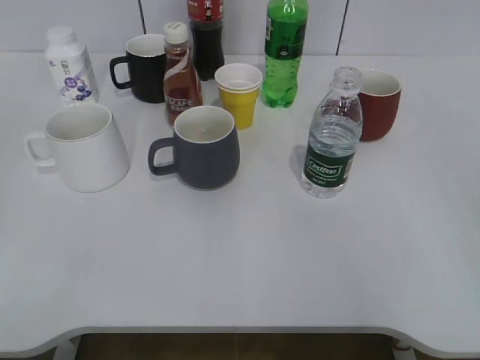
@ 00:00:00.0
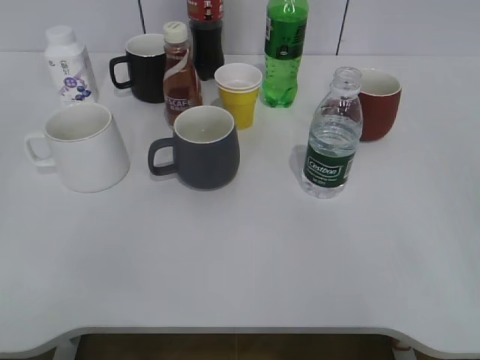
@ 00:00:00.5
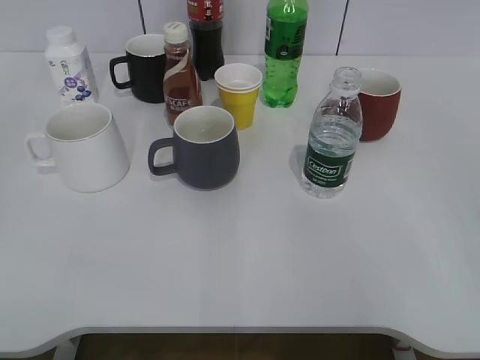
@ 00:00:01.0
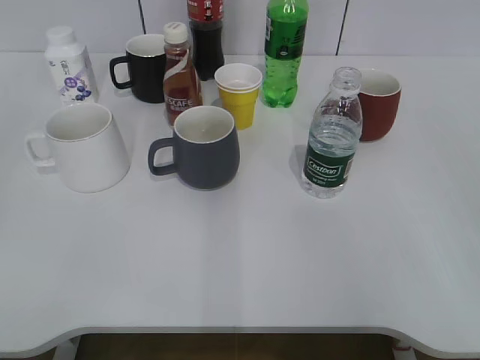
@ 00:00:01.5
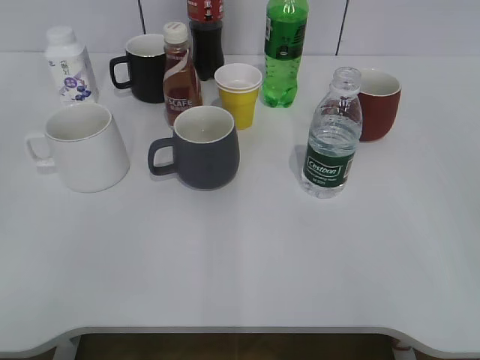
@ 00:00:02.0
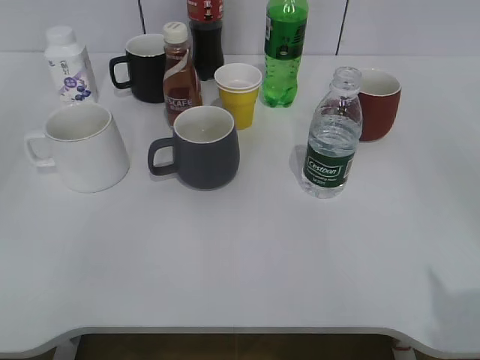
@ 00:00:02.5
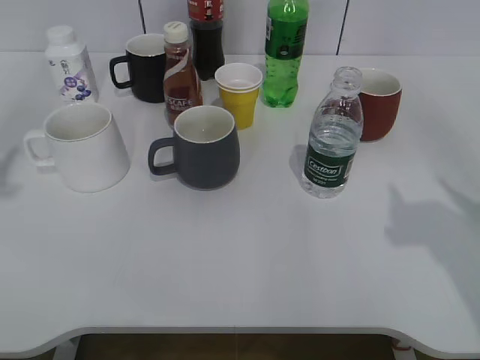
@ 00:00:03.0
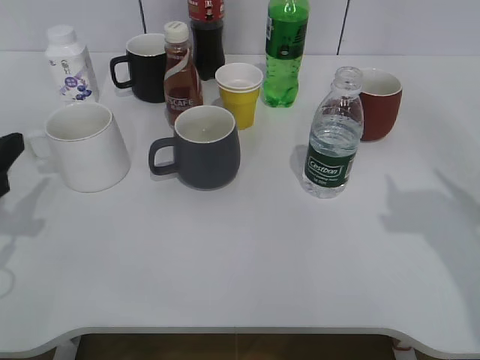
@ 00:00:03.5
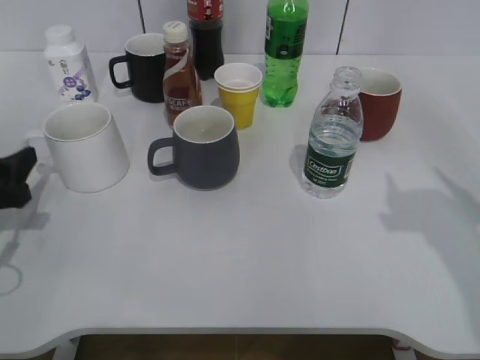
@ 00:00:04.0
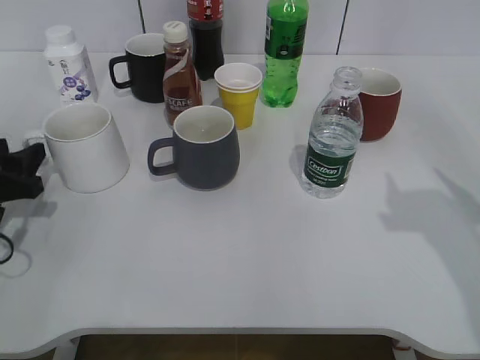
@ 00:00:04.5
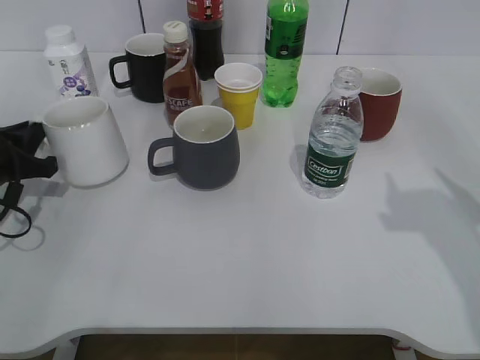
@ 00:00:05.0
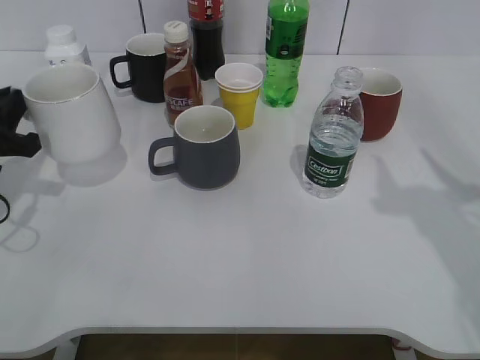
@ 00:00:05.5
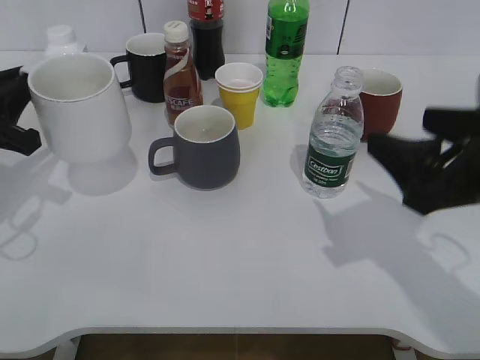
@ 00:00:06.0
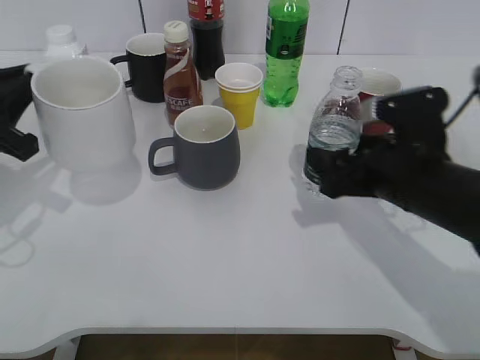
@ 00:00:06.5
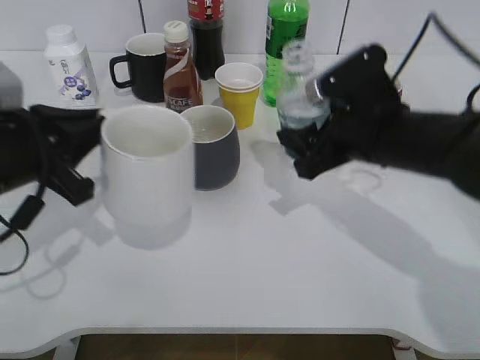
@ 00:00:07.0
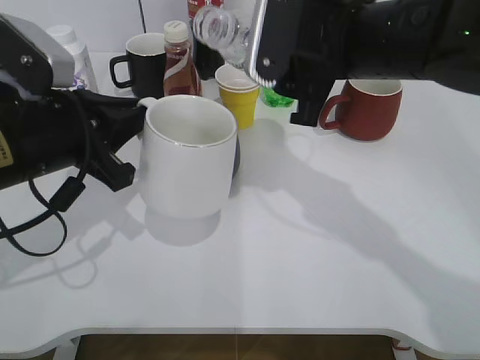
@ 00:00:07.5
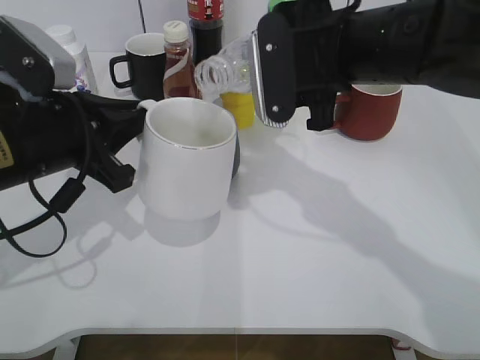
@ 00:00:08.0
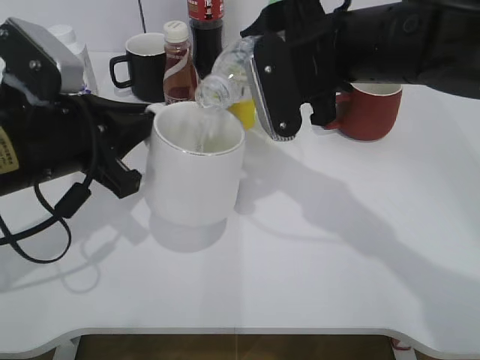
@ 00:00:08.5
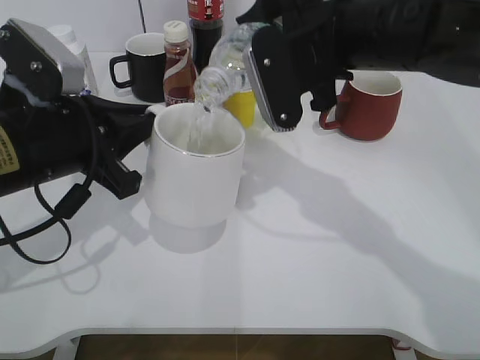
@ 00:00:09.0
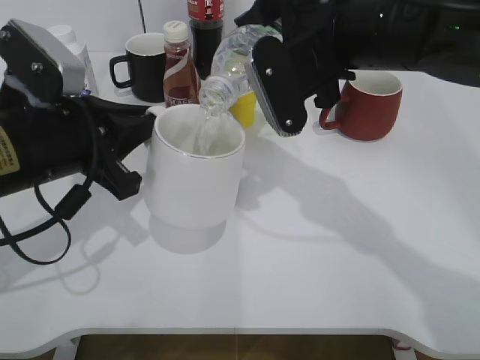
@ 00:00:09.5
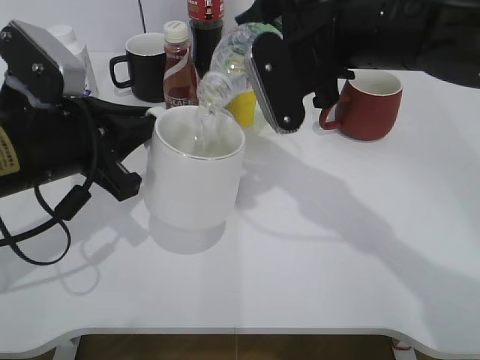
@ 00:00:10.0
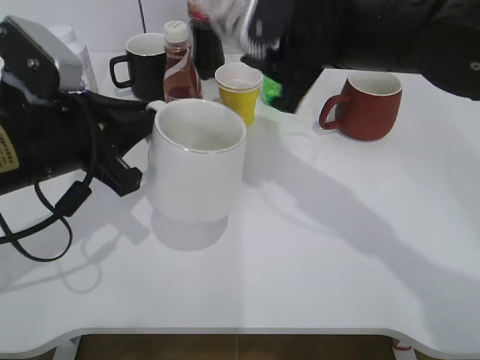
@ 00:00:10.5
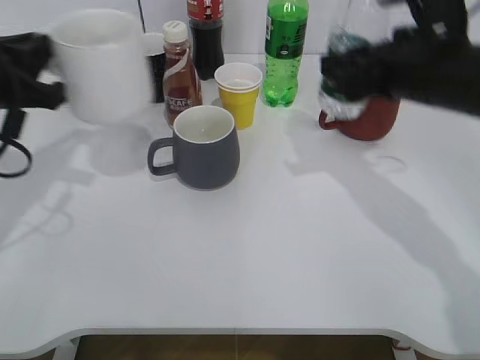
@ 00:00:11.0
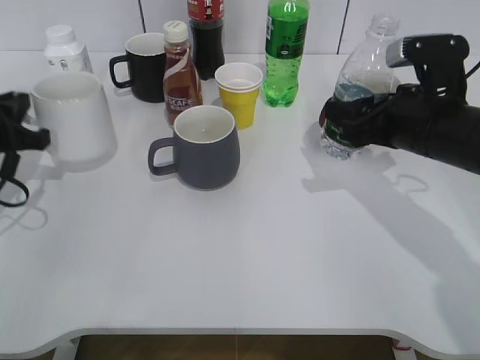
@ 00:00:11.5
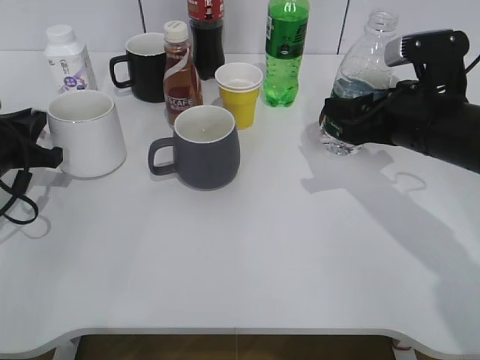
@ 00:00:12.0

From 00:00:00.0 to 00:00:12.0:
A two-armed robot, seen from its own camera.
Step, from 00:00:02.5 to 00:00:05.0: Grasp the white cup with left gripper.
Step, from 00:00:05.5 to 00:00:06.0: Lift the white cup with left gripper.
Step, from 00:00:07.0 to 00:00:10.0: Pour the water from bottle to cup with right gripper.
From 00:00:02.0 to 00:00:04.0: The left gripper goes roughly 30 cm forward and downward.
From 00:00:04.0 to 00:00:06.0: The right gripper shifts some 10 cm downward and to the left; the left gripper heads upward, covering approximately 5 cm, and closes up.
From 00:00:06.0 to 00:00:08.0: The left gripper moves to the right, about 10 cm. Meanwhile the right gripper shifts approximately 15 cm to the left and forward, and closes its fingers.
From 00:00:10.0 to 00:00:12.0: The left gripper heads to the left, downward and forward, covering some 15 cm. Meanwhile the right gripper moves to the right and downward, about 15 cm.

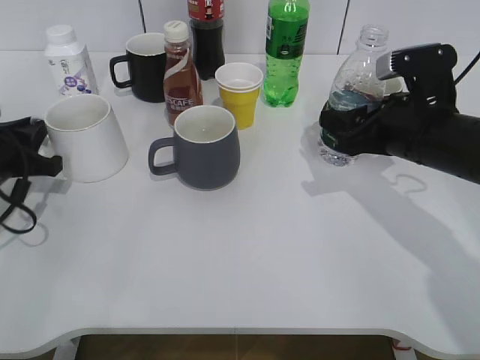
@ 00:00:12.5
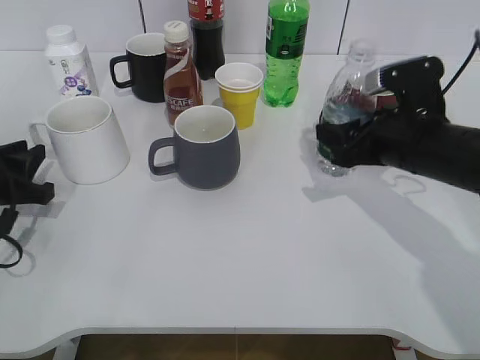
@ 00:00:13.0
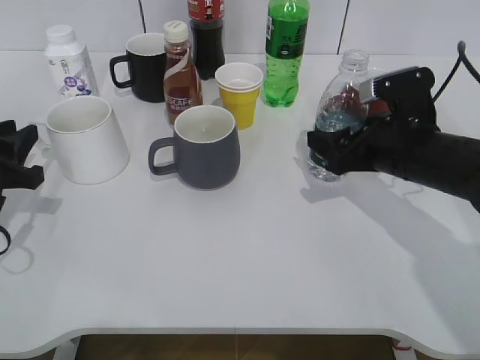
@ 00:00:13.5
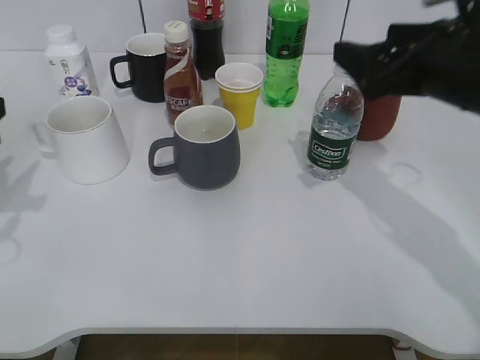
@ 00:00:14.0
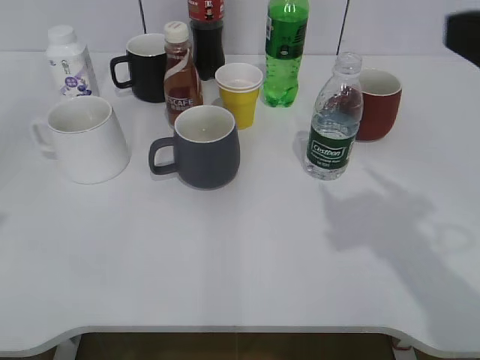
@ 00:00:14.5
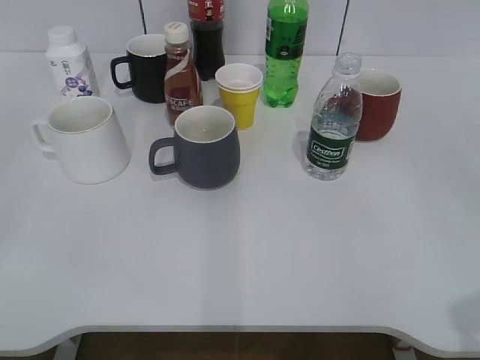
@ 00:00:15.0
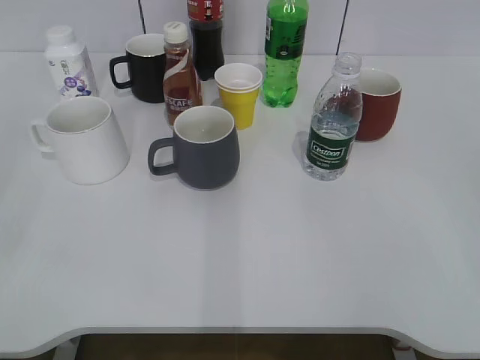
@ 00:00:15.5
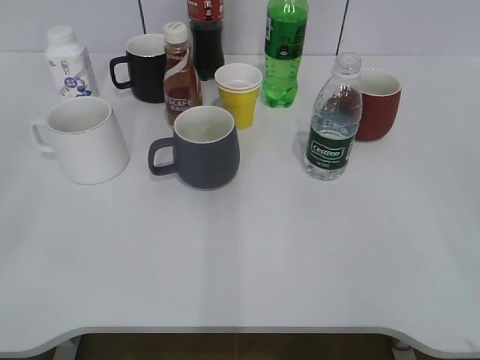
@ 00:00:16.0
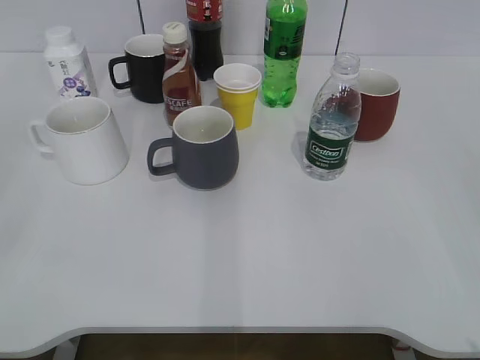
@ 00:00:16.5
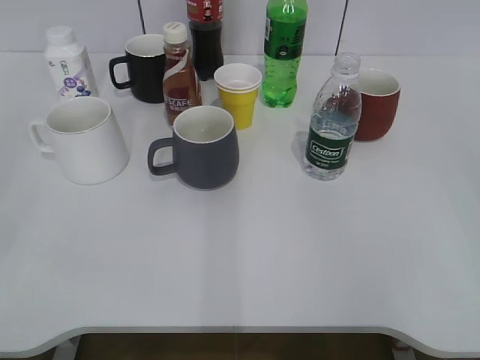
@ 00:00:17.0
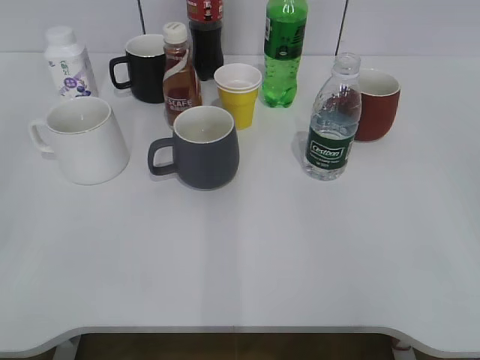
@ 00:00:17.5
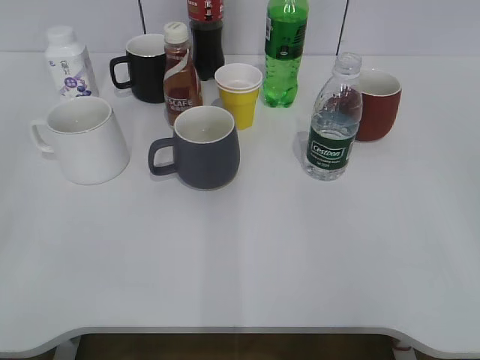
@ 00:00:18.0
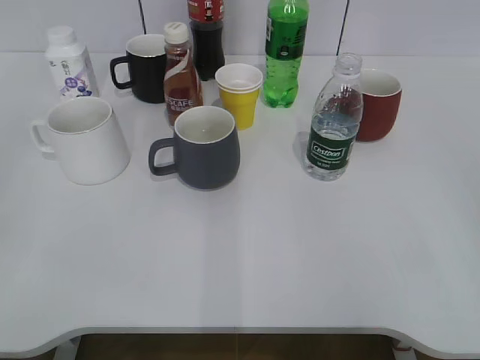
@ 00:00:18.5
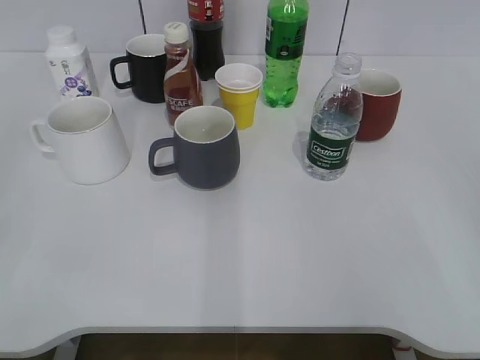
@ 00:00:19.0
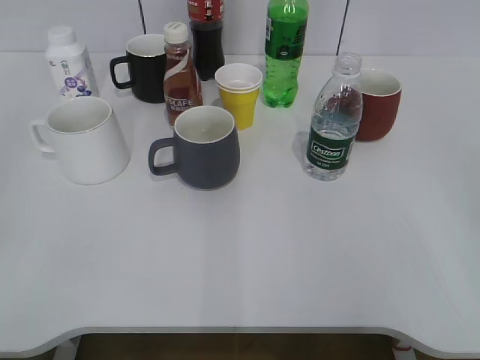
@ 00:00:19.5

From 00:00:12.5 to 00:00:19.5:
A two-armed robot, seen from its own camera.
Step, from 00:00:13.0 to 00:00:13.5: Place the water bottle on the table with right gripper.
From 00:00:12.5 to 00:00:14.5: The two grippers go approximately 25 cm upward and backward. The left gripper opens its fingers. Meanwhile the right gripper opens up.
From 00:00:14.5 to 00:00:16.0: The right gripper goes about 20 cm backward and to the right.
